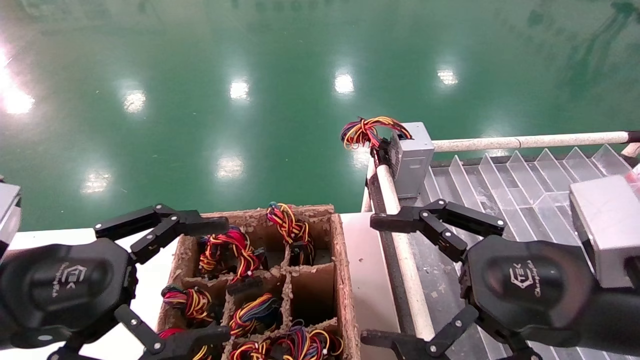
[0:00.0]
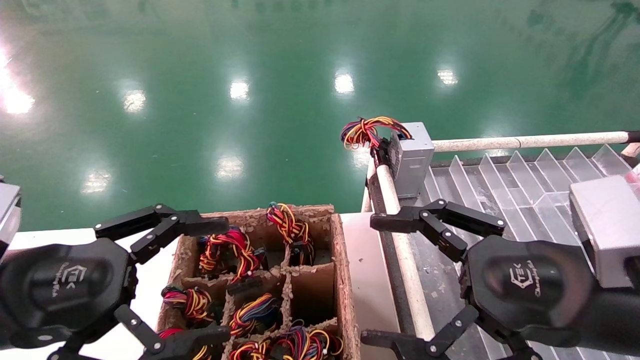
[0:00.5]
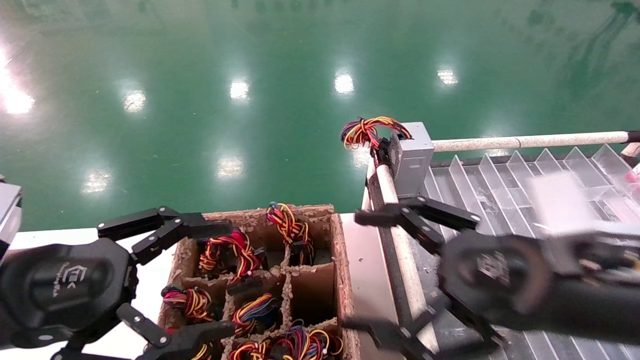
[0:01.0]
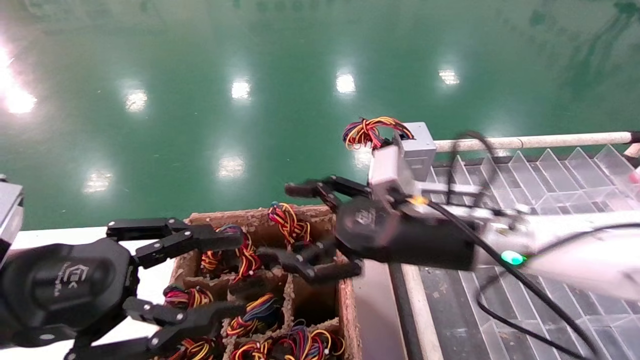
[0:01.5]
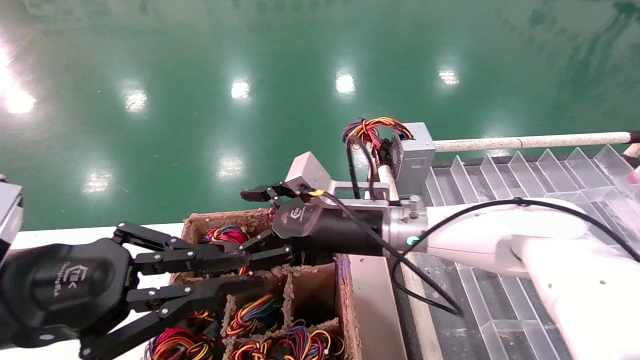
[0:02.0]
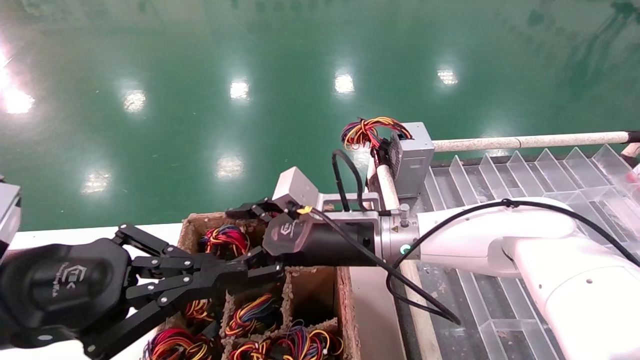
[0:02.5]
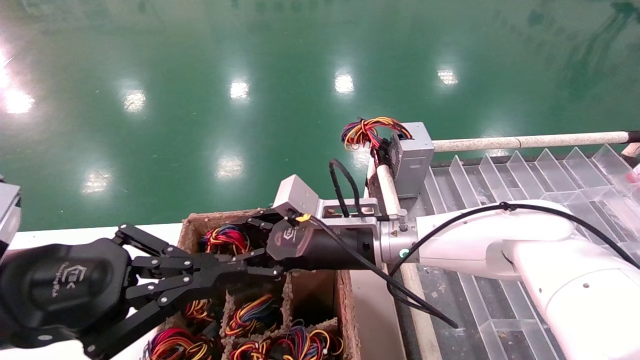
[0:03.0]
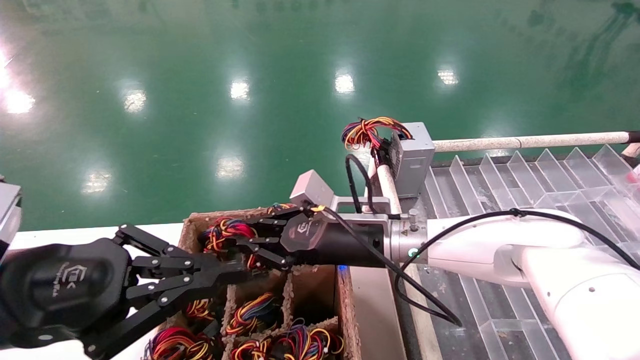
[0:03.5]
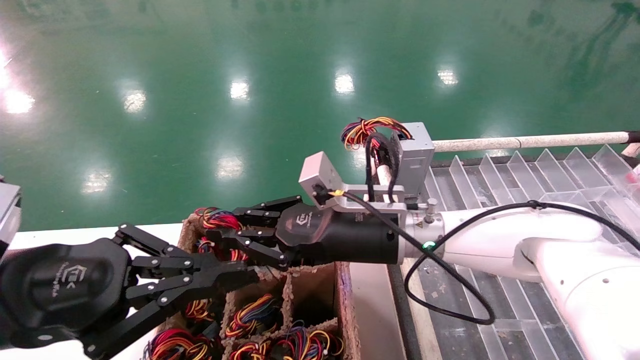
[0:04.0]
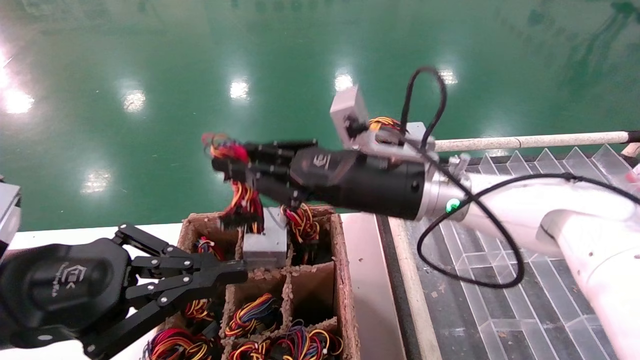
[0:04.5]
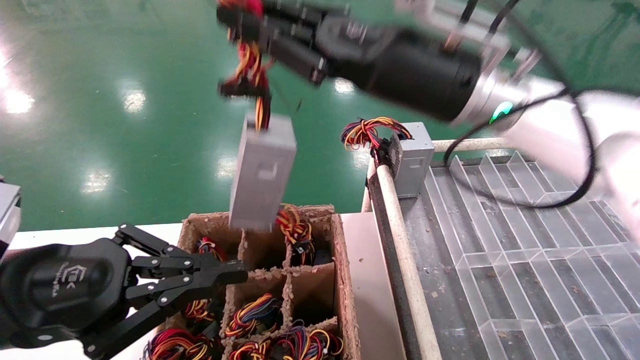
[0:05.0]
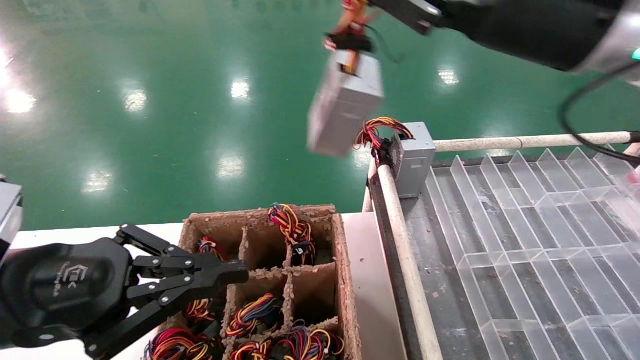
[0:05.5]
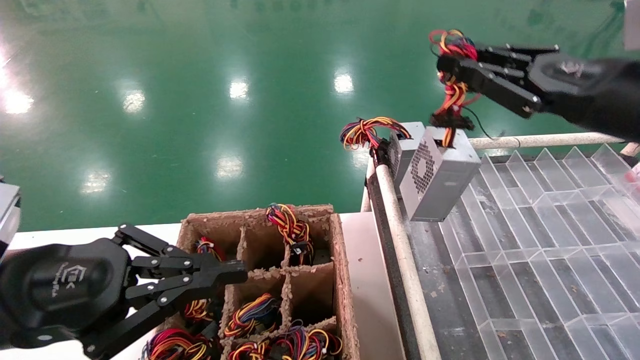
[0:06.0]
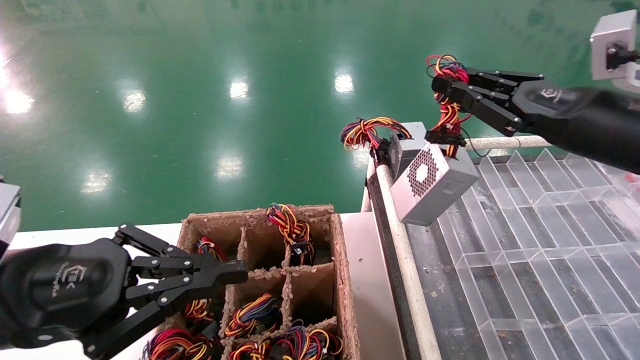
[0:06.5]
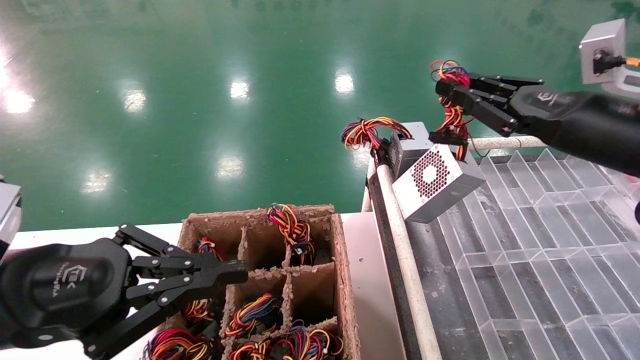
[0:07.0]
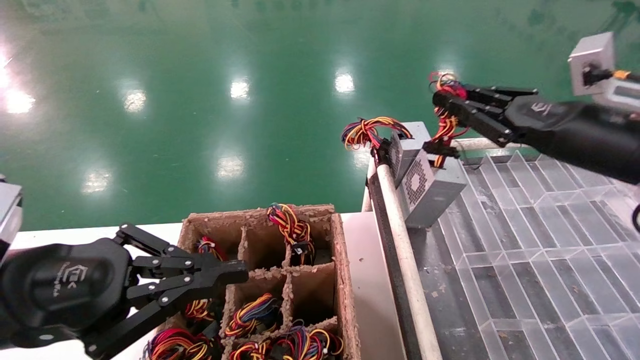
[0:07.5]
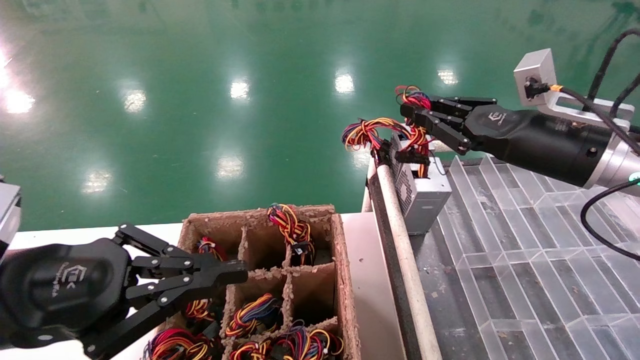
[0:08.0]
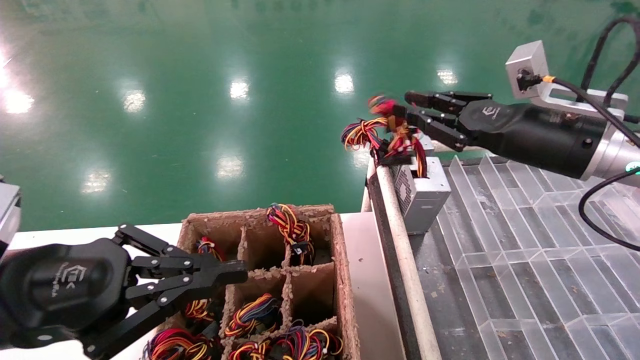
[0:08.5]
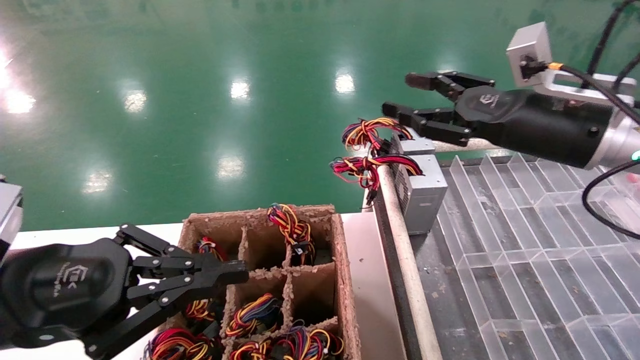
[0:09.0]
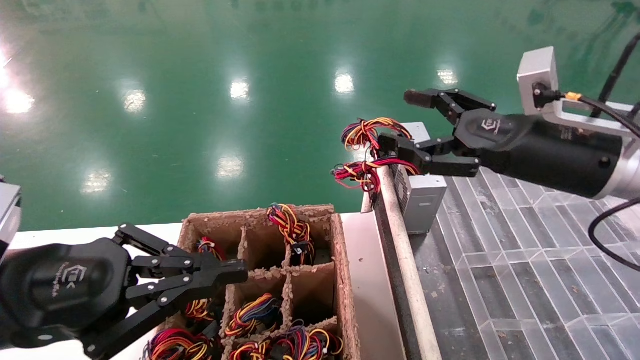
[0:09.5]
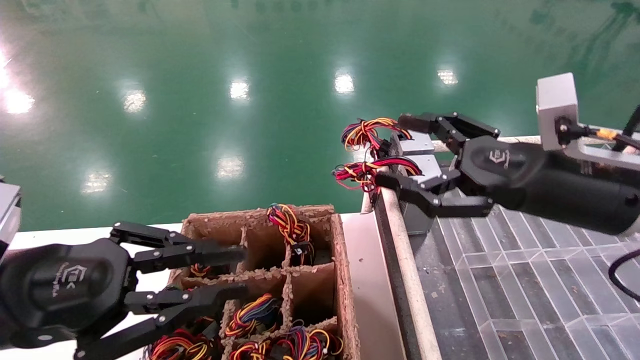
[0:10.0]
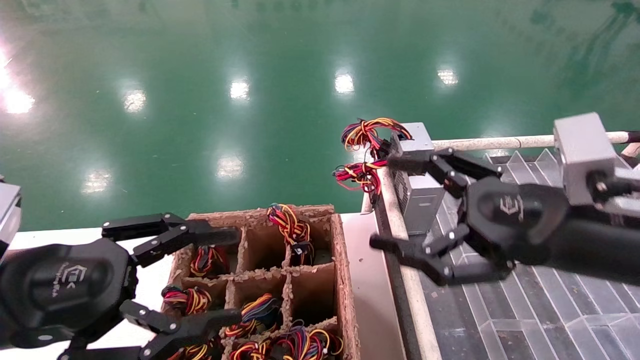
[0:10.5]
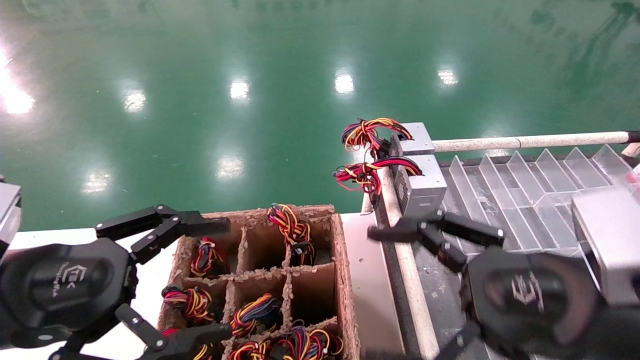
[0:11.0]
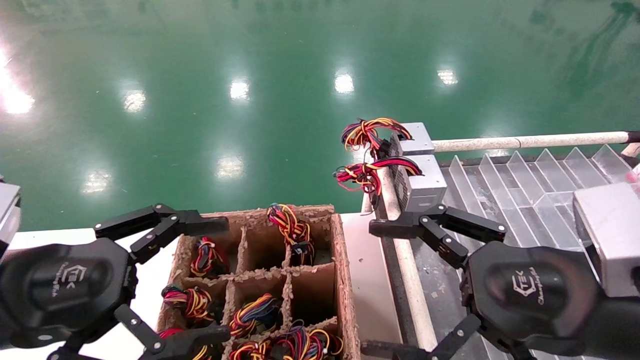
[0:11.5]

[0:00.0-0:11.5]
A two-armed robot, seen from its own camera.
Step, 0:01.5 to 0:03.5: Grab the main unit power supply from the containment box.
Step, 0:04.0 to 0:08.5: Place the main unit power supply in the designated area.
0:00.0 to 0:02.0: The left gripper closes up. The right gripper goes approximately 25 cm forward and to the left.
0:02.0 to 0:04.0: The right gripper closes up.
0:04.0 to 0:06.0: The right gripper shifts some 30 cm to the right and upward.
0:06.0 to 0:07.5: The right gripper moves about 5 cm.
0:07.5 to 0:09.5: The right gripper is displaced to the left by some 5 cm, and opens its fingers.
0:09.5 to 0:11.5: The right gripper goes approximately 15 cm backward and downward. Meanwhile the left gripper opens up.

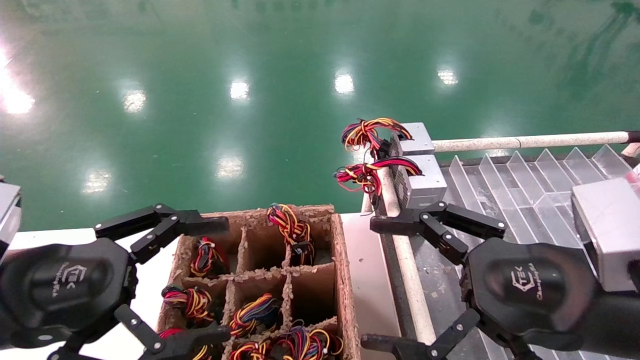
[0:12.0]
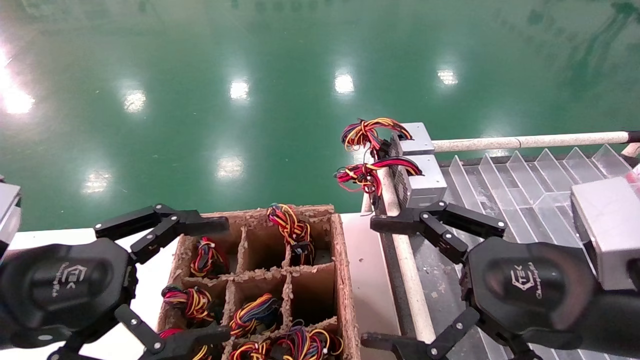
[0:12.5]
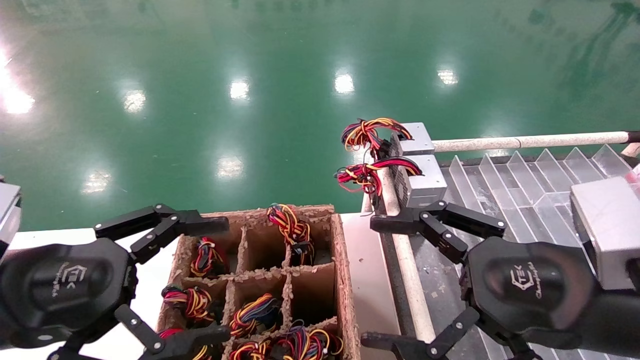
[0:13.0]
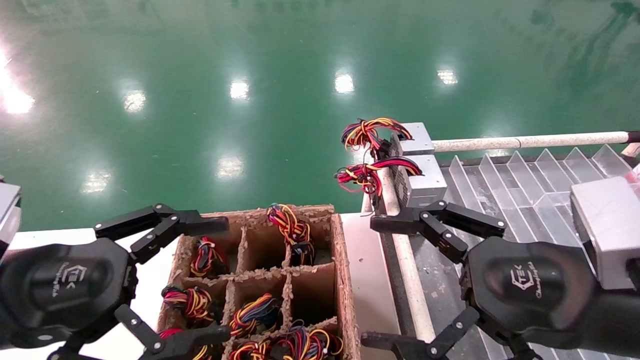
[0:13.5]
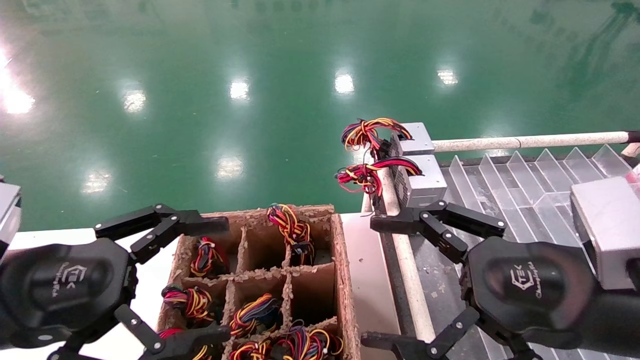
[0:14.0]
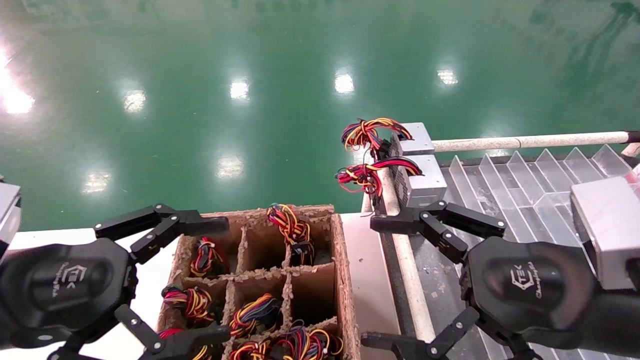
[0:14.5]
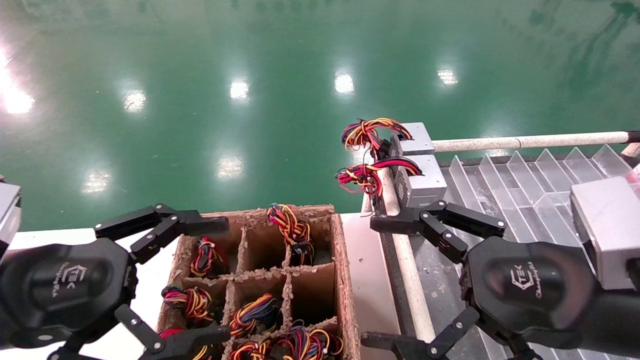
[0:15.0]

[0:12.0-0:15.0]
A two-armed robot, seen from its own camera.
0:12.0 to 0:15.0: Both grippers stay about where they are.
